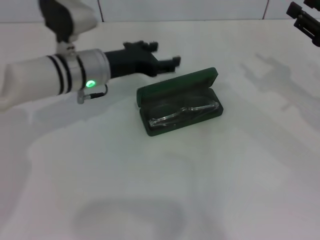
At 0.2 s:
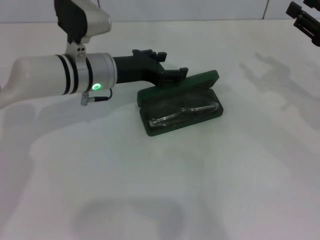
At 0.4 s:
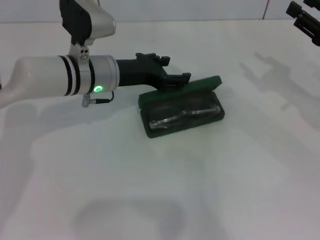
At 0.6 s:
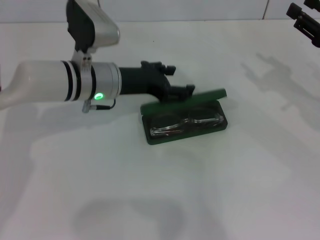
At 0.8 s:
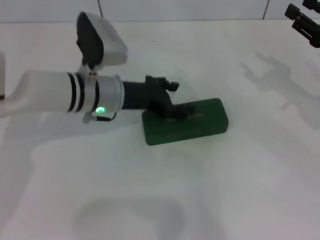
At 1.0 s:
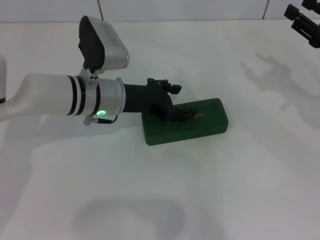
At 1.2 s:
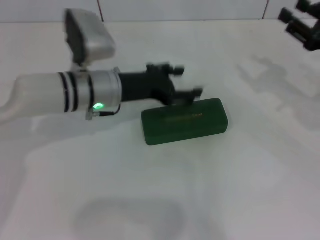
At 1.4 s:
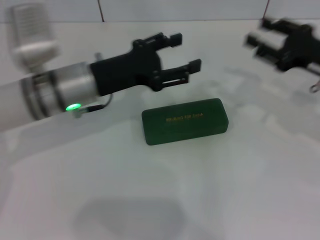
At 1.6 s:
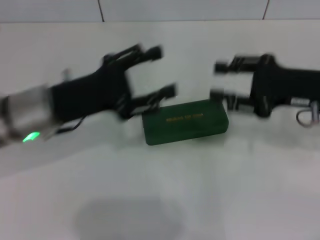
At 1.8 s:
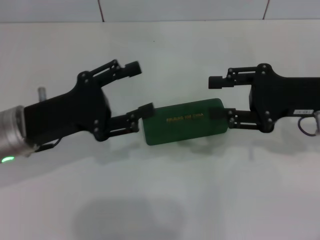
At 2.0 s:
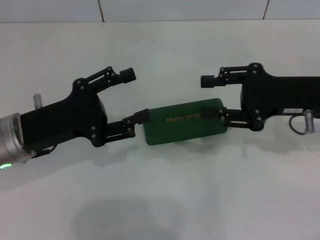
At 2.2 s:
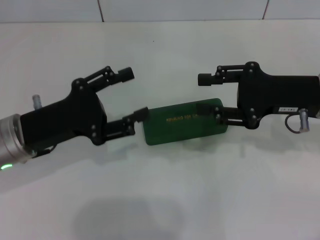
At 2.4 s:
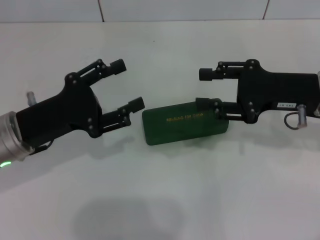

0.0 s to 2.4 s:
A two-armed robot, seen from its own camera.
0.0 to 1.2 s: The grippers make only small movements.
1.2 to 2.4 s: The left gripper moves to the left and backward, roughly 15 cm; the right gripper shifts roughly 10 cm to the left.

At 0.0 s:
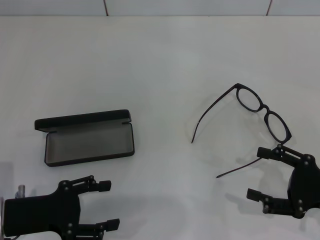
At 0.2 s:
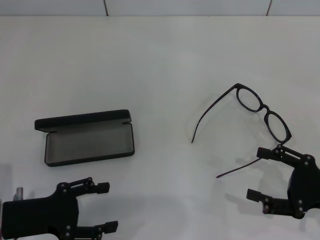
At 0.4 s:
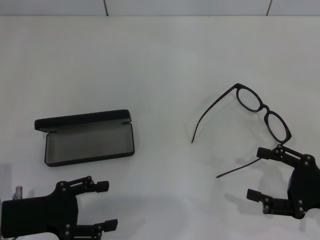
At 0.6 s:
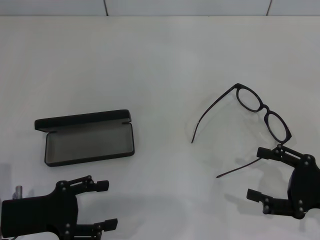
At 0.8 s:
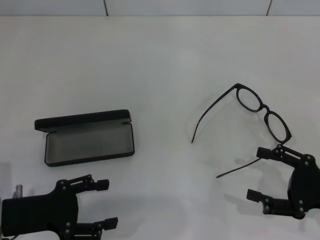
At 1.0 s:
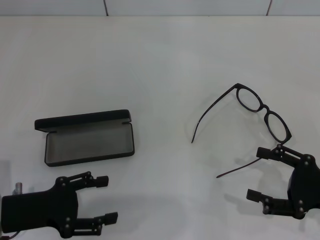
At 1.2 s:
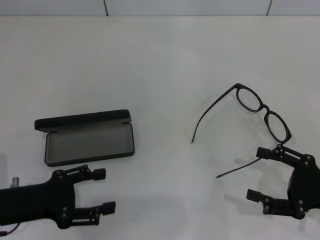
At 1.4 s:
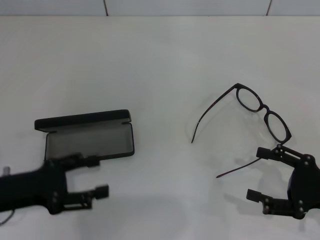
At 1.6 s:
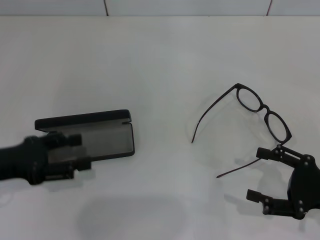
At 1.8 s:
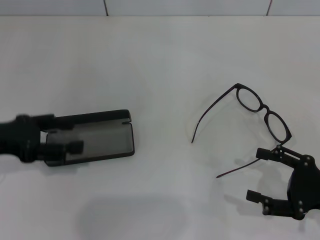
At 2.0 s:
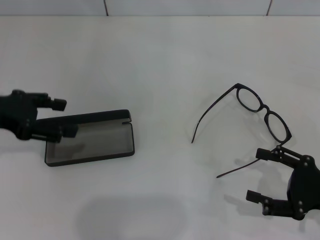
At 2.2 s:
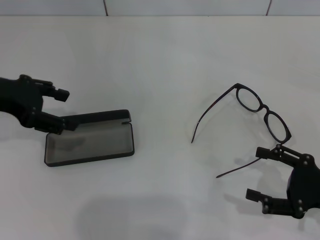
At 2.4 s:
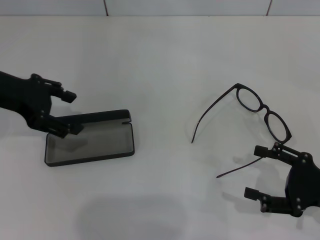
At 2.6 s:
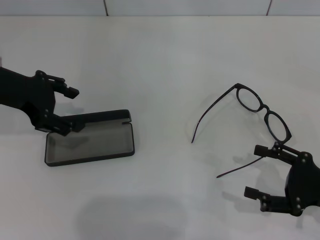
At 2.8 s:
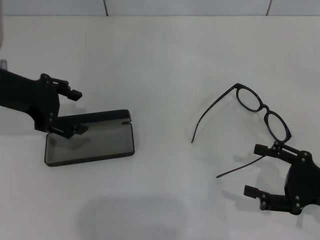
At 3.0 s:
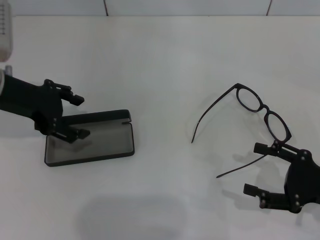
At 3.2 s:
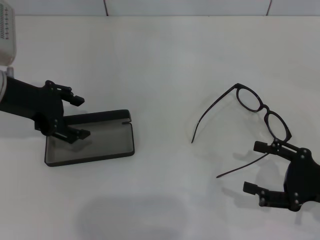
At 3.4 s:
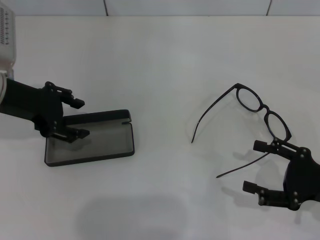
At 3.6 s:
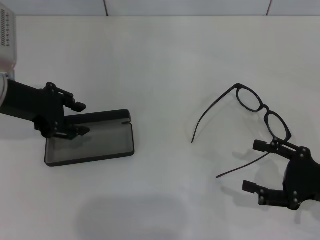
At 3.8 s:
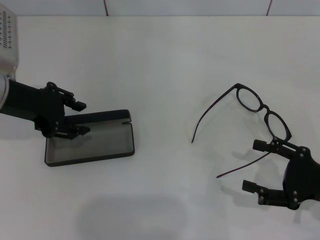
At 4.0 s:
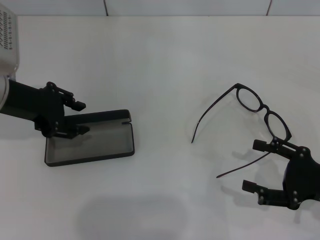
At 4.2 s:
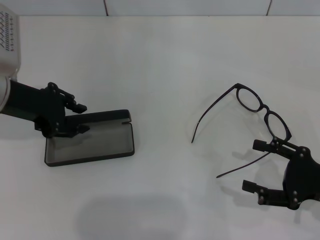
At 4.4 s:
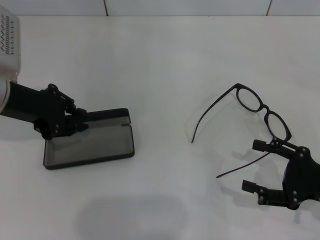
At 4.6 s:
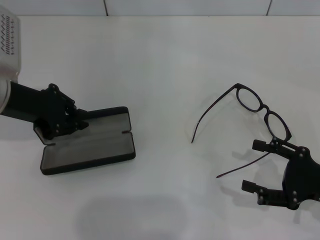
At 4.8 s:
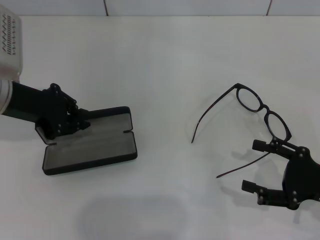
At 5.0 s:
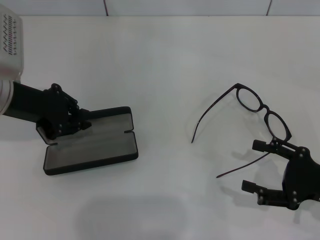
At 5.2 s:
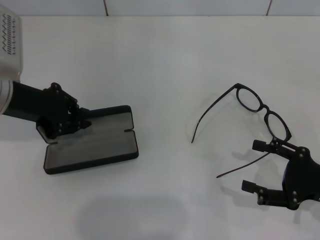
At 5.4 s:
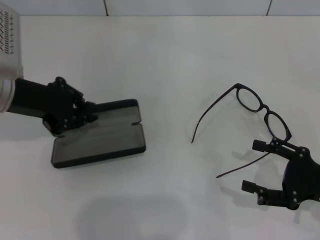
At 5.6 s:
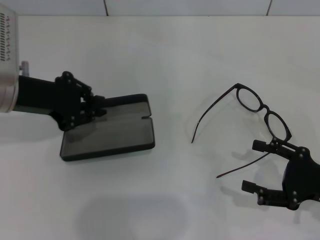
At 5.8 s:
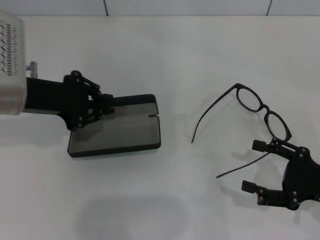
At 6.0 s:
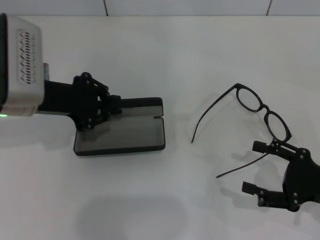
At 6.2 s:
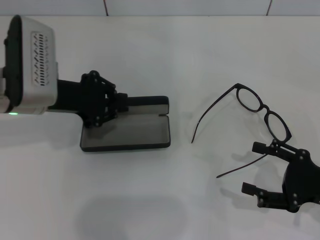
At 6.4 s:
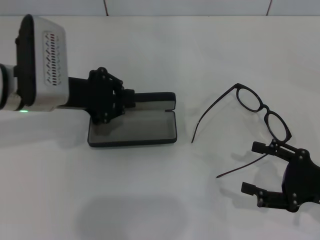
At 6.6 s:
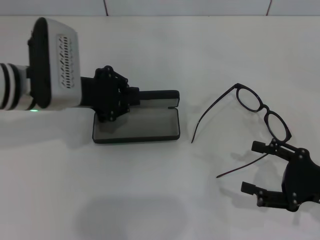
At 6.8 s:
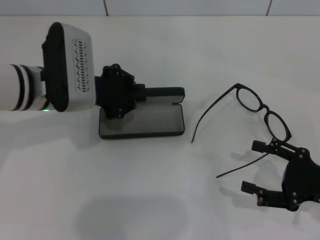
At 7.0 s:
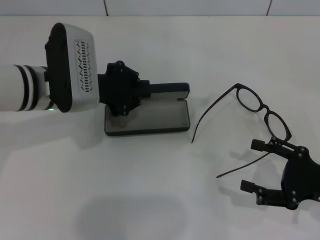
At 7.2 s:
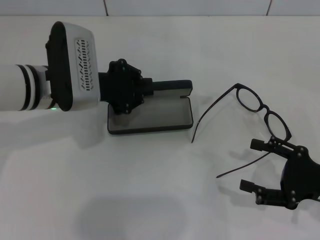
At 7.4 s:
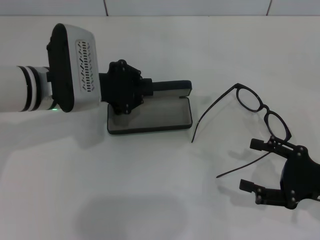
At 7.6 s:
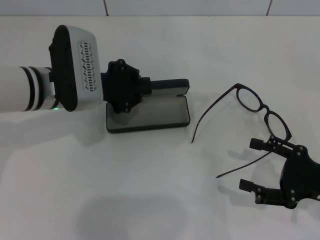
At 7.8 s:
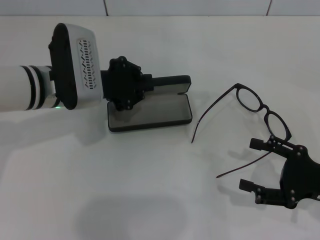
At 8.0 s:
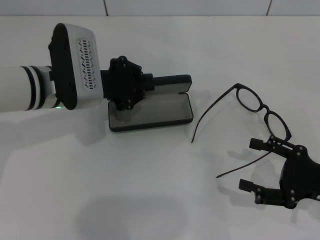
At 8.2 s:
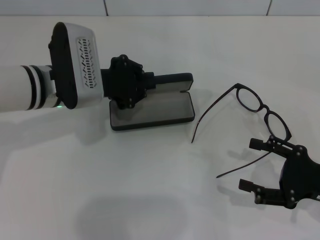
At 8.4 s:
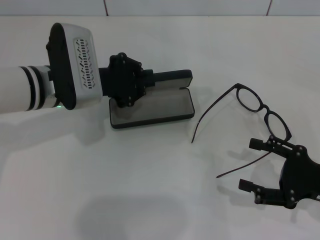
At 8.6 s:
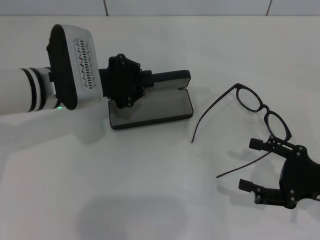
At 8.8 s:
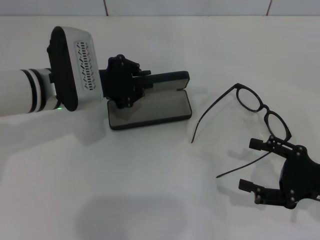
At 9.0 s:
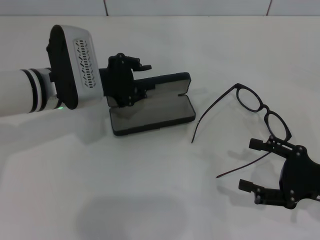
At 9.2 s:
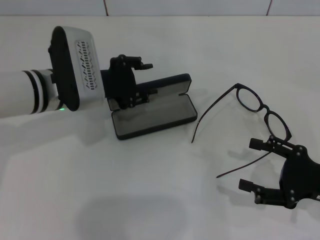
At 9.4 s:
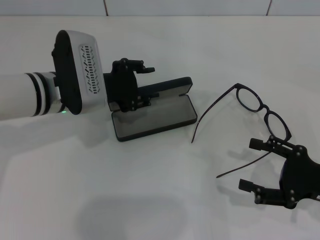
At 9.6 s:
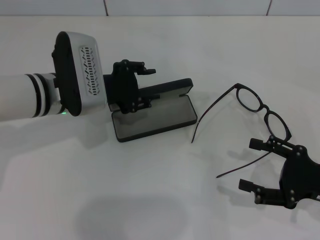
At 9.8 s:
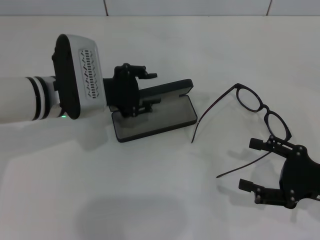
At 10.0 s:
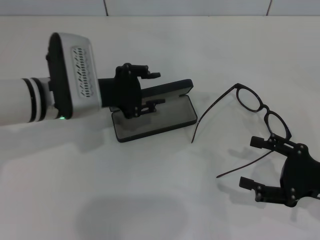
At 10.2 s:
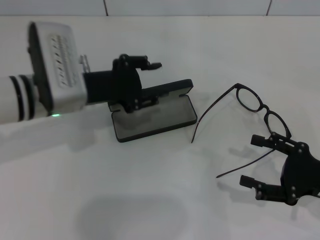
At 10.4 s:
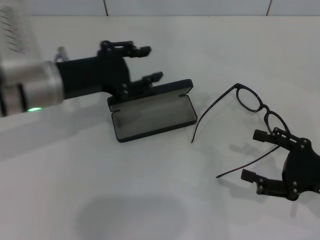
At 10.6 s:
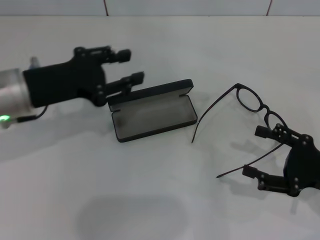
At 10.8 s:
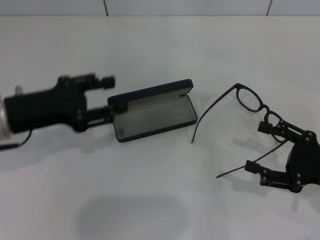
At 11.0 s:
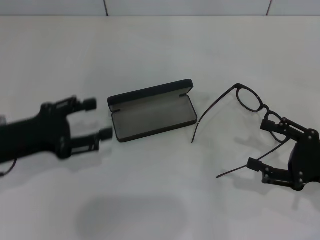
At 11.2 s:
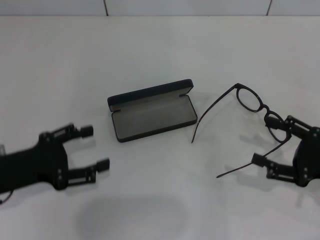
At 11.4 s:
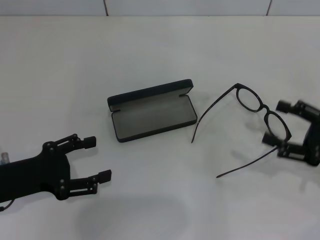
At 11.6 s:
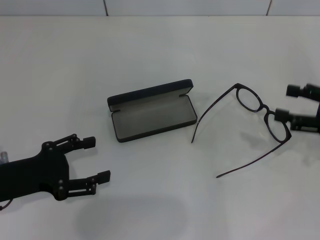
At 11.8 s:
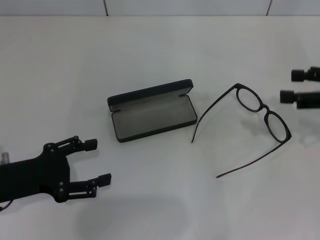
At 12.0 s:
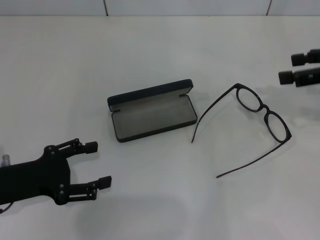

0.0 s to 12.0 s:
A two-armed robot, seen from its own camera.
Step, 0.0 to 4.4 s: Grab the glasses case with your left hand.
Step, 4.6 to 9.6 s: Place the glasses case in the center of the table with your left hand.
0.0 to 1.6 s: The left gripper goes some 5 cm upward.
1.6 to 3.0 s: The left gripper goes approximately 15 cm forward and upward.
3.0 to 4.4 s: The left gripper closes.
6.0 to 7.6 s: The left gripper moves to the right, approximately 5 cm.
7.6 to 9.0 s: The grippers make only small movements.
9.0 to 10.4 s: The left gripper shifts by approximately 5 cm.
10.4 to 12.0 s: The left gripper shifts about 15 cm backward, to the left and downward, and opens its fingers, while the right gripper heads upward and forward, covering approximately 20 cm.

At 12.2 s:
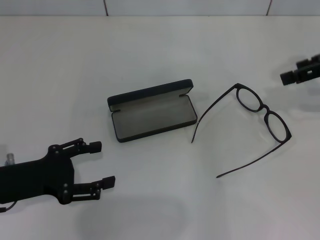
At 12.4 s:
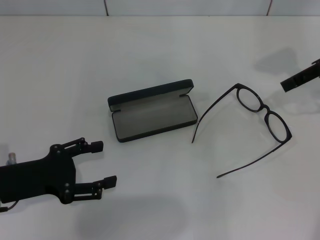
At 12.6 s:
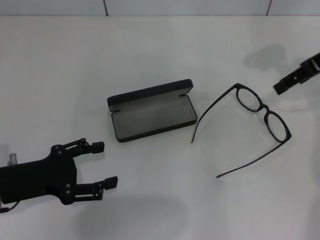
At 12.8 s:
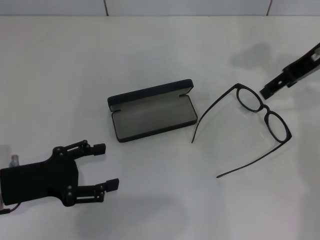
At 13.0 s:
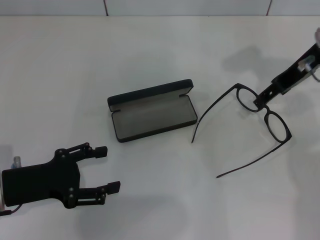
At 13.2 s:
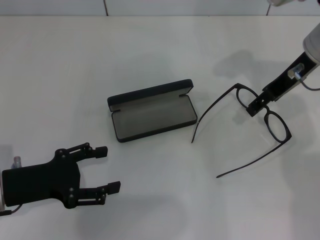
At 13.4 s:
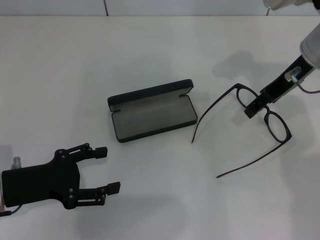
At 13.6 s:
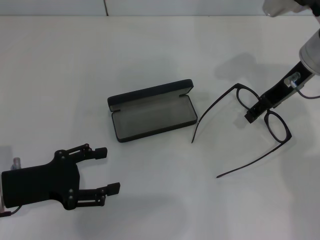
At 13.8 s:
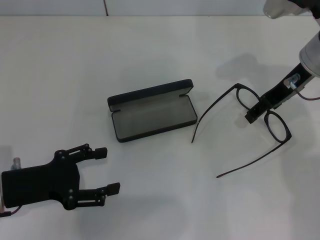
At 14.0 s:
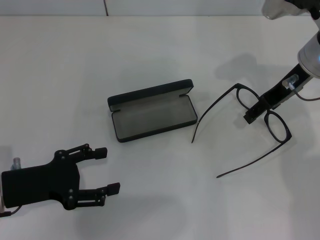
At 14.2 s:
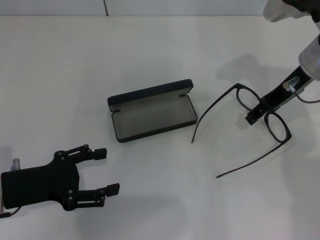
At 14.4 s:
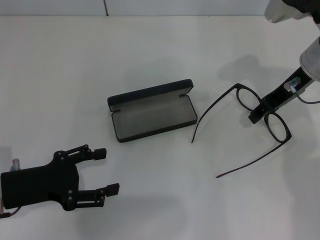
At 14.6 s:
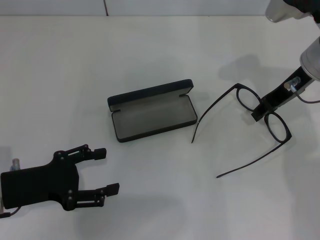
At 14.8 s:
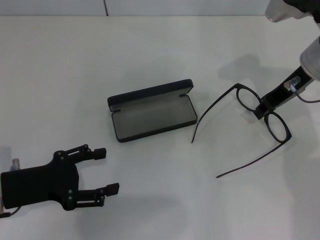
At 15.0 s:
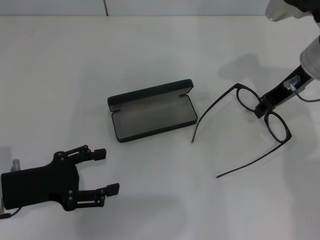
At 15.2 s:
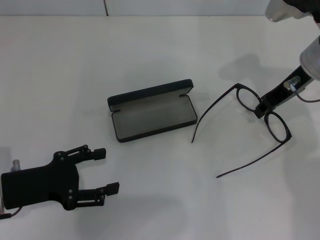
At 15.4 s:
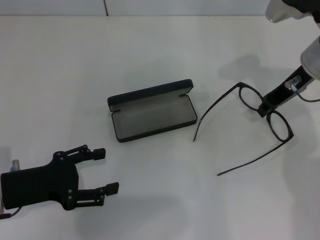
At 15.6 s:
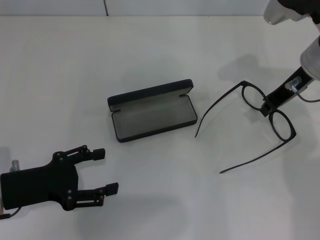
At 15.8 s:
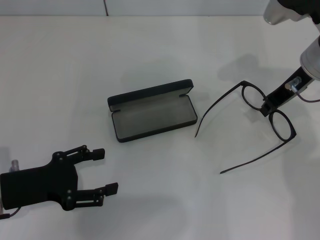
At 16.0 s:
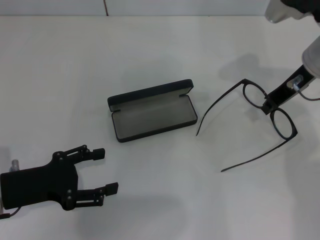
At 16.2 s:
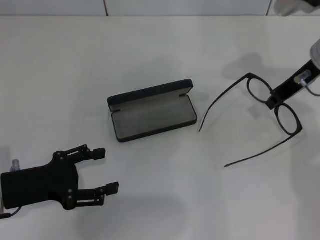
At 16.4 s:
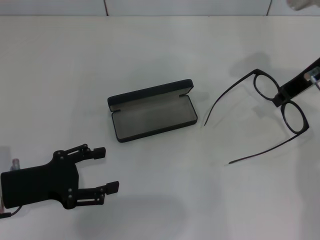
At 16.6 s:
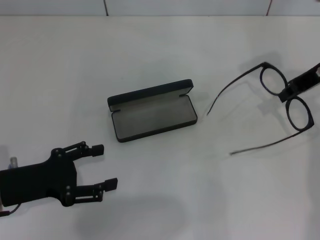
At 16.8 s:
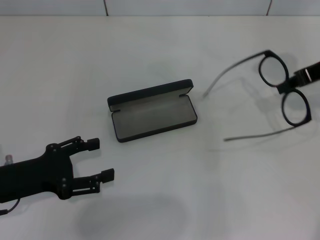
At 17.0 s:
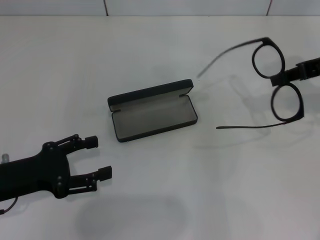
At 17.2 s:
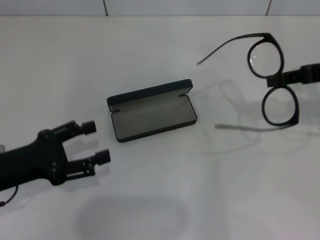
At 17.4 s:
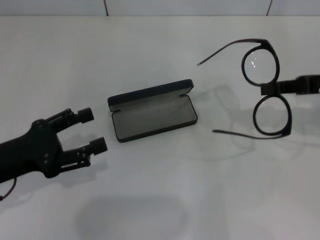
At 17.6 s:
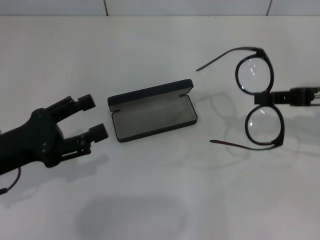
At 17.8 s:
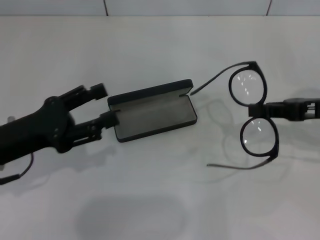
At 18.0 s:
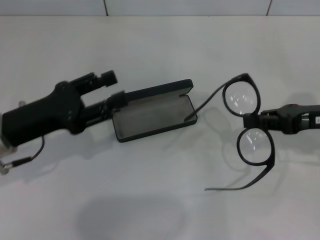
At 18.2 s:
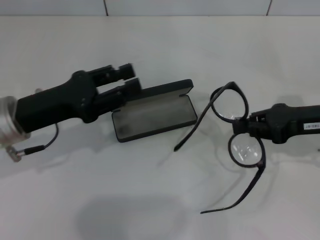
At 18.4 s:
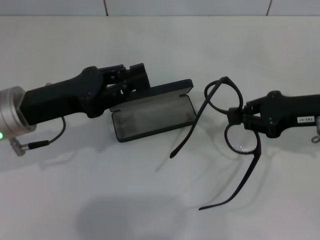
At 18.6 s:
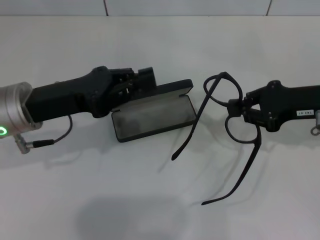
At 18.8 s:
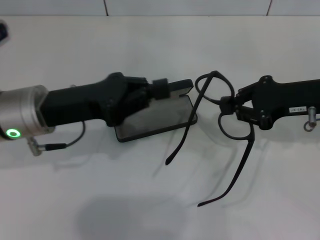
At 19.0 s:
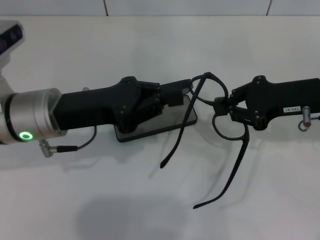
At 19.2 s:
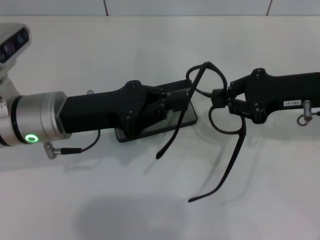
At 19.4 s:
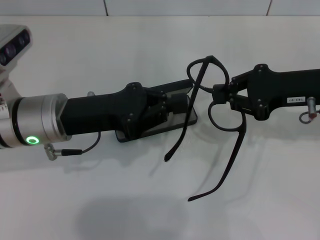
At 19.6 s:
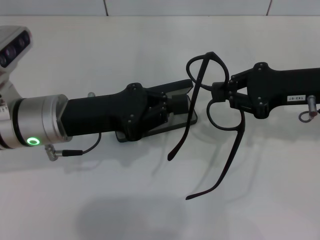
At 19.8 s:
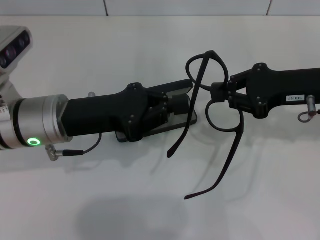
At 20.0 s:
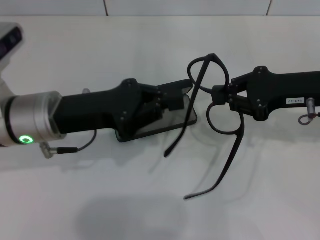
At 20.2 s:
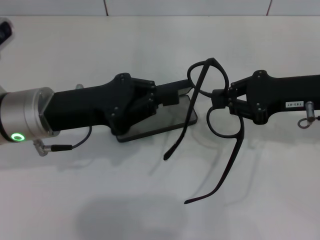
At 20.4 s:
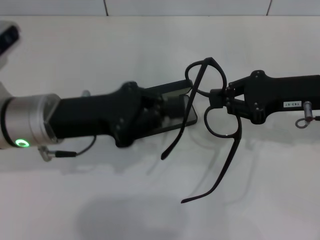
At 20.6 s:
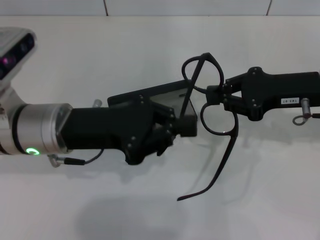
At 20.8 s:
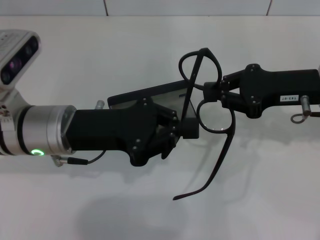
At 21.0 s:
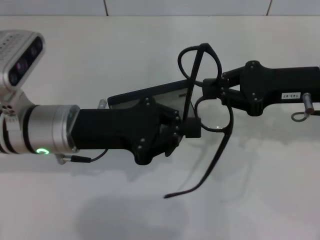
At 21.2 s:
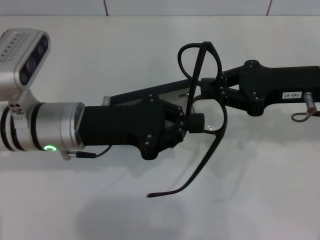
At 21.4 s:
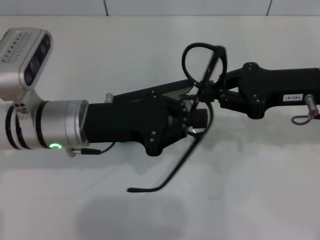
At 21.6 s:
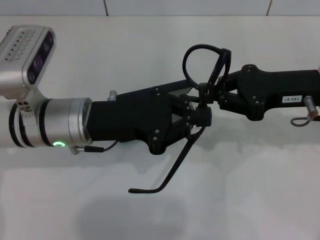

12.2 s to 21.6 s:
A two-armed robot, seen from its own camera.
Step, 12.2 to 15.0 s: Grab the eyeglass frame with your right hand.
12.2 to 13.8 s: The right gripper shifts some 10 cm to the left.
13.8 to 15.4 s: The right gripper closes.
15.4 to 17.0 s: The right gripper goes some 10 cm to the right.
17.0 to 18.4 s: The left gripper moves forward and to the right, approximately 10 cm, and closes up. The right gripper heads downward and backward, covering some 10 cm.
18.4 to 20.0 s: The left gripper closes its fingers.
20.0 to 21.6 s: The grippers move only a little.
